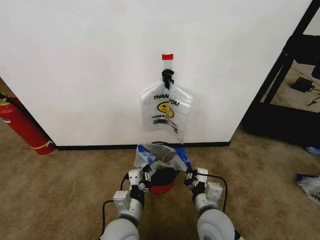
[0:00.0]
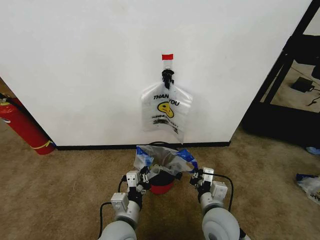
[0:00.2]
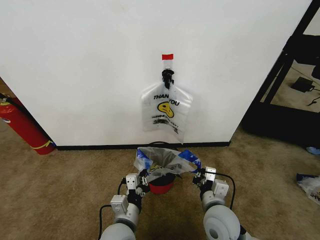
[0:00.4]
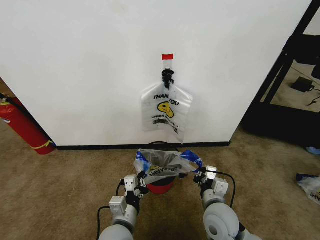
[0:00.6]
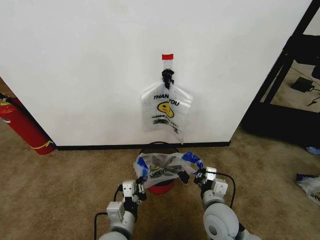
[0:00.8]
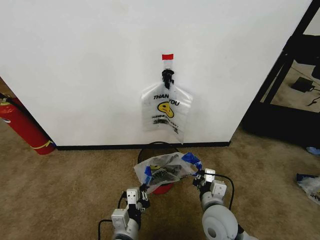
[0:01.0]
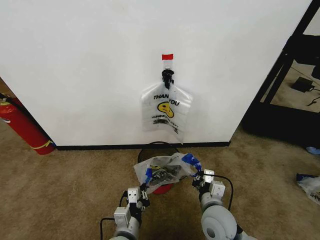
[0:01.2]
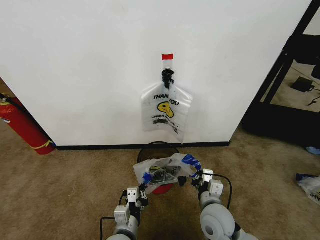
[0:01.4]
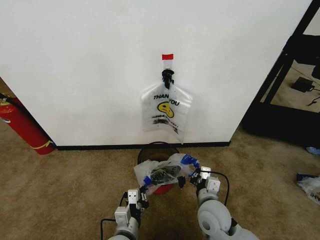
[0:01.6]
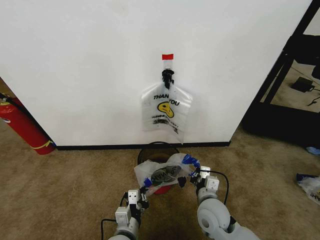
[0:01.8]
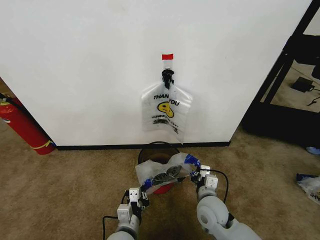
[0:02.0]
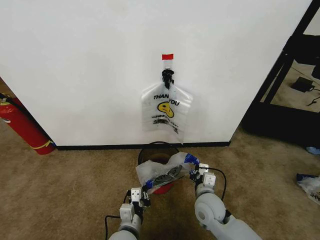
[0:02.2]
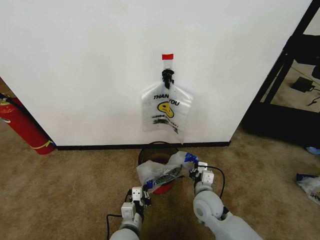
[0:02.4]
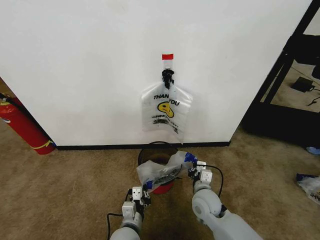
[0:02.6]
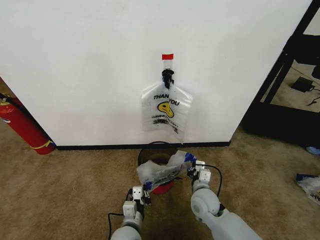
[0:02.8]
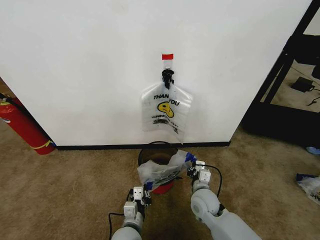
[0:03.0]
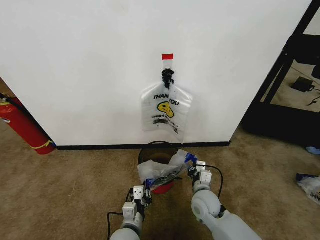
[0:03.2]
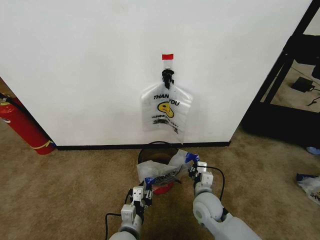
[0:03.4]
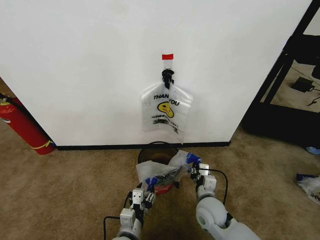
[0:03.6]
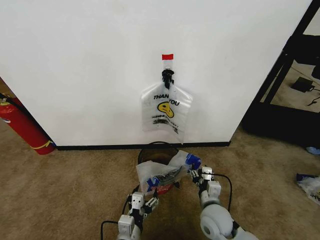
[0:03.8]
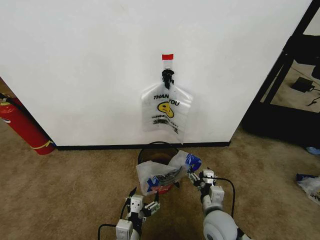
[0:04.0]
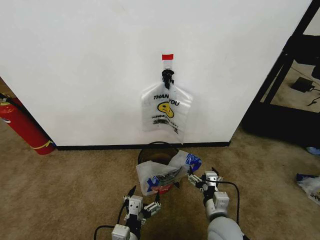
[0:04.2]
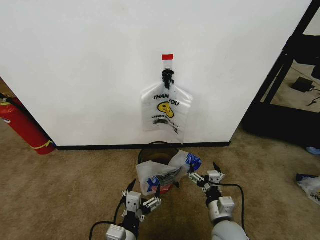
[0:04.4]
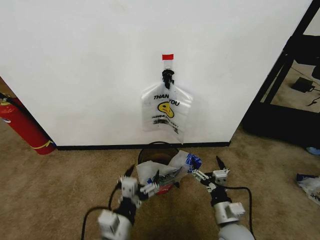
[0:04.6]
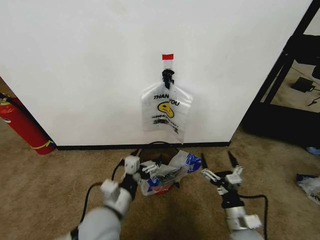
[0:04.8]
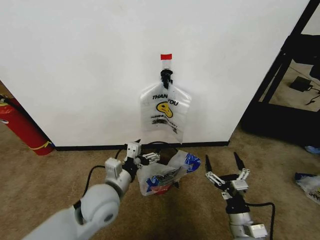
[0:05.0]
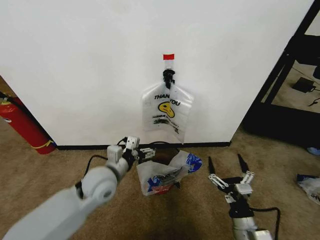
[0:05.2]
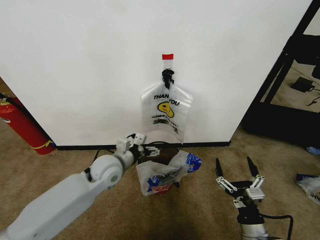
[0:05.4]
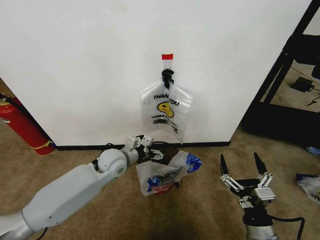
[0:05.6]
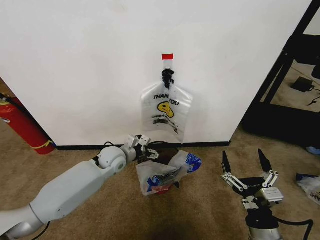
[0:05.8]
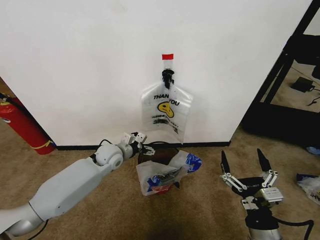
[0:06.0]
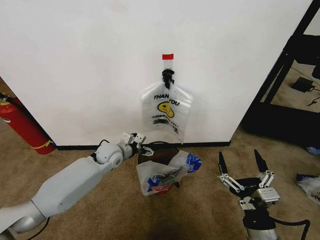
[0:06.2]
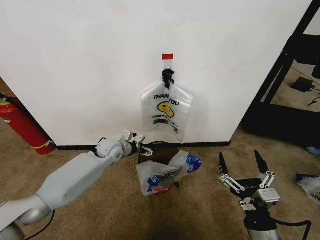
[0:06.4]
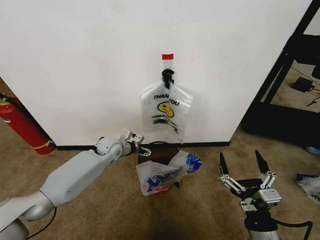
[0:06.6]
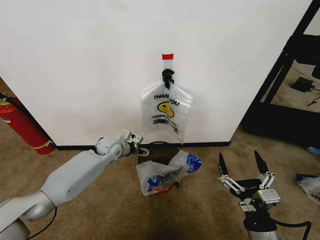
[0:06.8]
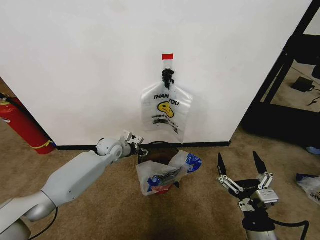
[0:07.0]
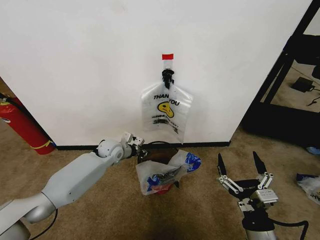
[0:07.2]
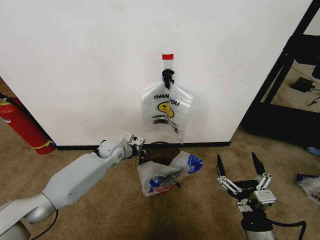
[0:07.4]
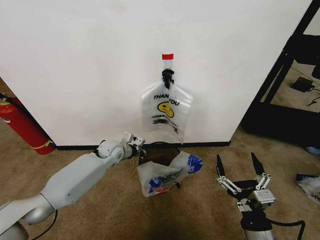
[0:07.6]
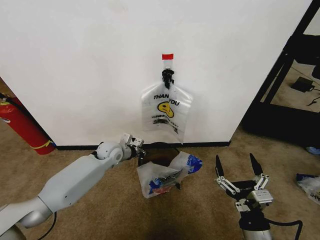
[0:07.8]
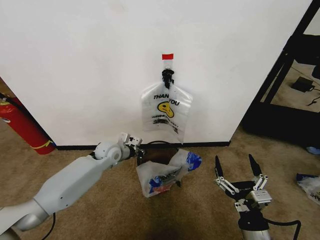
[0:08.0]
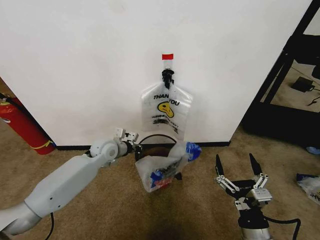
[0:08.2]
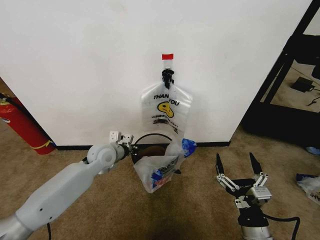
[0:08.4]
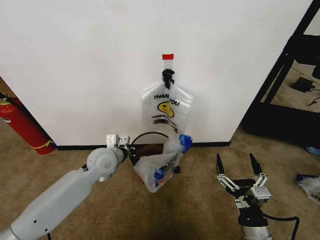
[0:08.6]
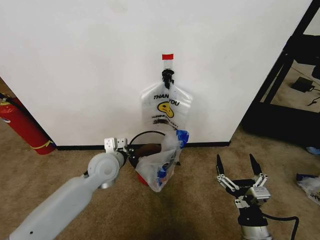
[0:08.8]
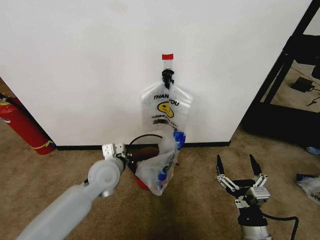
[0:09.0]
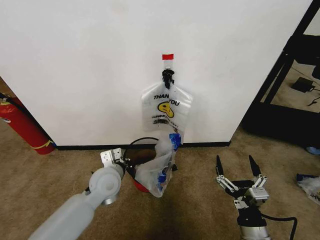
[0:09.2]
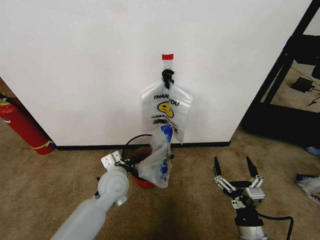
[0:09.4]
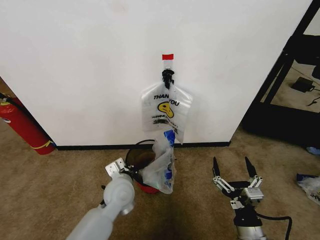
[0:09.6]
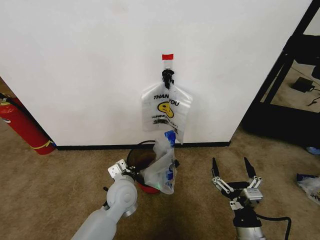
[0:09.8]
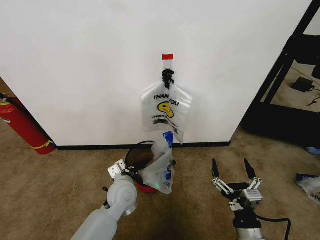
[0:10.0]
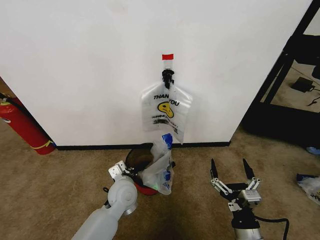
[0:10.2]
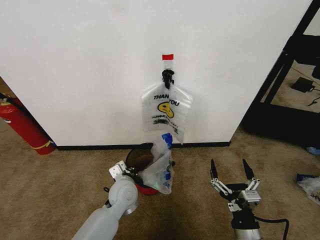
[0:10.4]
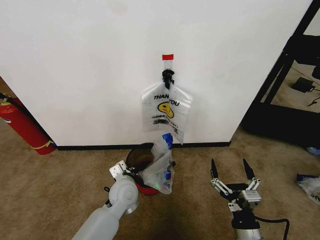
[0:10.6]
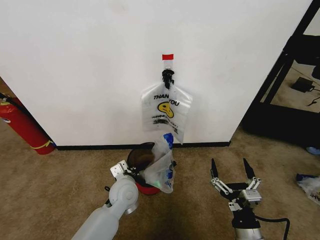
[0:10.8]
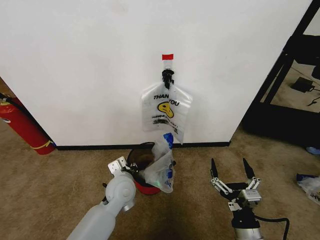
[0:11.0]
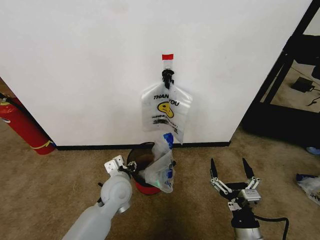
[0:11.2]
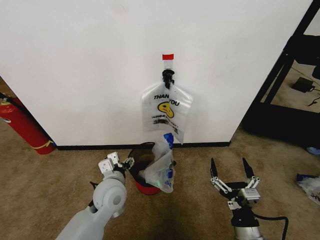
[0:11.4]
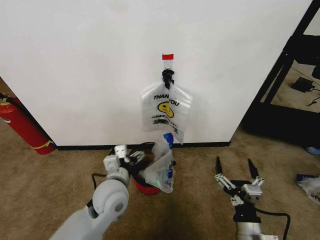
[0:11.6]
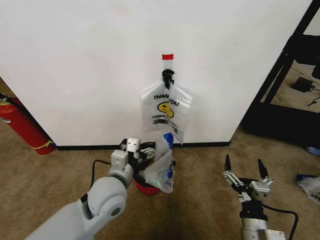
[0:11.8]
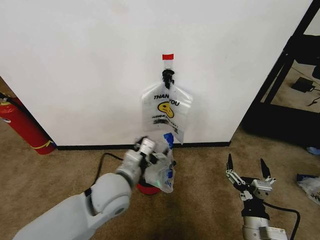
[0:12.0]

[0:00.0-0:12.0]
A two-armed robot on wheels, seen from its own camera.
Task of the whole recording: Pick up the garbage bag from the wall and place it over the trash bin.
0:00.0 to 0:01.6: The right gripper moves approximately 5 cm, while the left gripper goes approximately 5 cm downward.
0:01.6 to 0:03.0: The right gripper is displaced forward by approximately 5 cm. The left gripper ends up about 5 cm from where it was.
0:03.0 to 0:04.4: The left gripper heads upward and backward, covering roughly 10 cm, and opens its fingers. Meanwhile the right gripper goes some 10 cm backward, and opens its fingers.
0:04.4 to 0:06.0: The right gripper goes some 15 cm backward, upward and to the right, while the left gripper travels forward by roughly 35 cm.
0:06.0 to 0:07.6: The left gripper closes its fingers.
0:07.6 to 0:09.0: The left gripper goes some 15 cm backward.
0:09.0 to 0:10.4: The left gripper heads downward and to the right, covering about 10 cm.
0:10.4 to 0:12.0: The left gripper travels upward by approximately 15 cm, and opens its fingers.

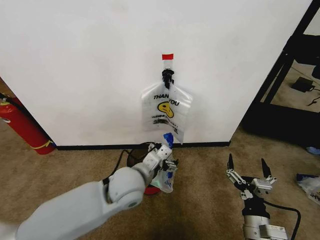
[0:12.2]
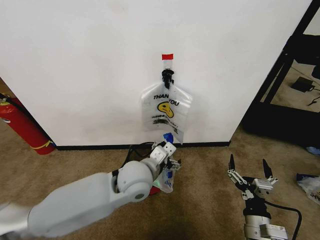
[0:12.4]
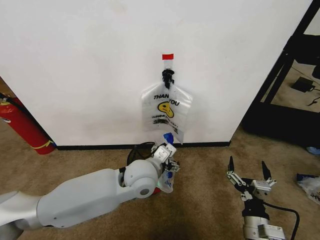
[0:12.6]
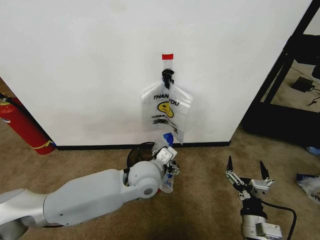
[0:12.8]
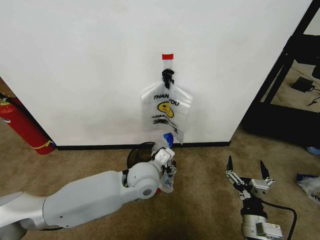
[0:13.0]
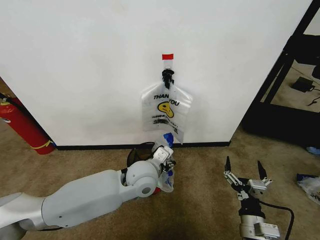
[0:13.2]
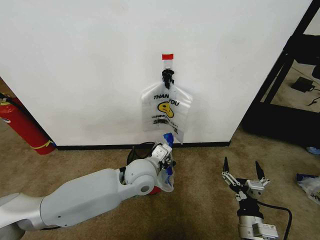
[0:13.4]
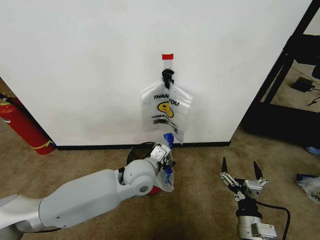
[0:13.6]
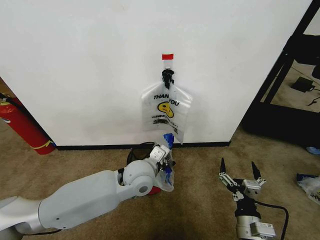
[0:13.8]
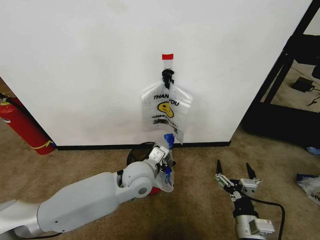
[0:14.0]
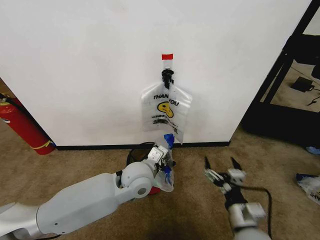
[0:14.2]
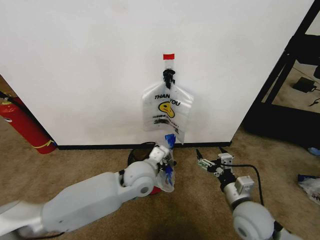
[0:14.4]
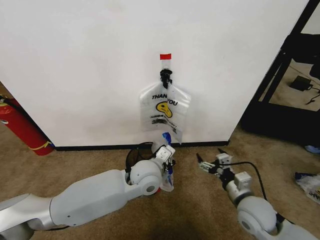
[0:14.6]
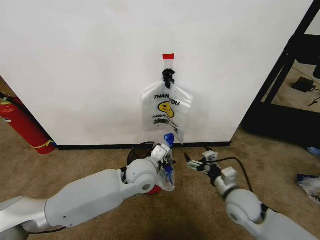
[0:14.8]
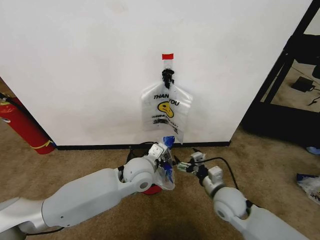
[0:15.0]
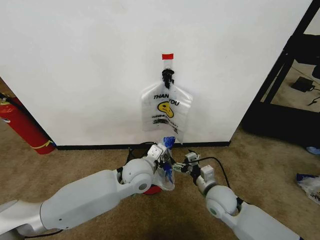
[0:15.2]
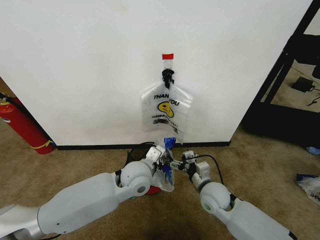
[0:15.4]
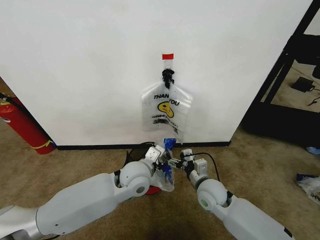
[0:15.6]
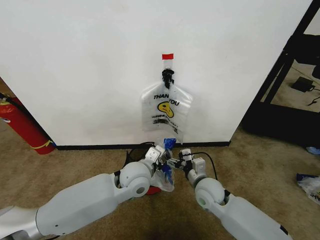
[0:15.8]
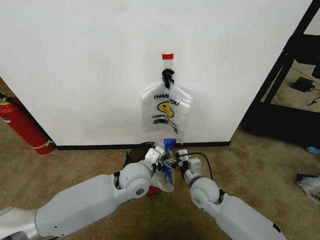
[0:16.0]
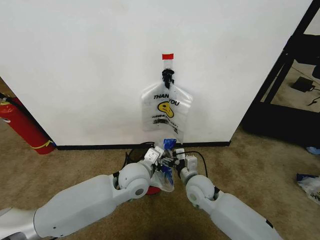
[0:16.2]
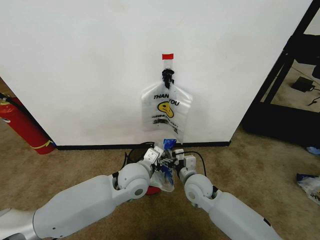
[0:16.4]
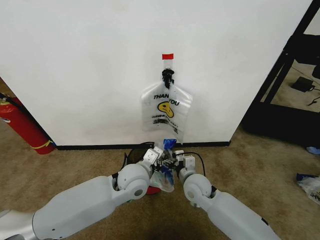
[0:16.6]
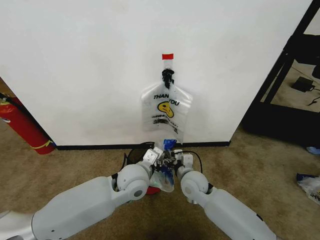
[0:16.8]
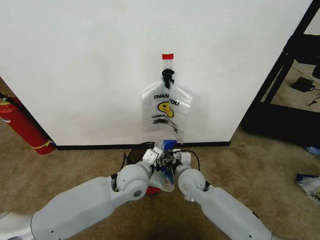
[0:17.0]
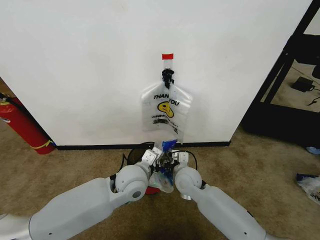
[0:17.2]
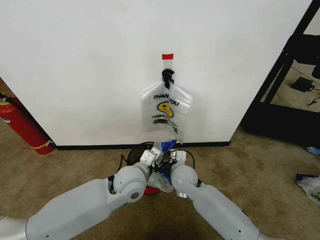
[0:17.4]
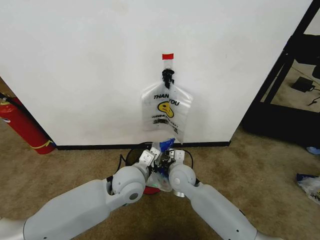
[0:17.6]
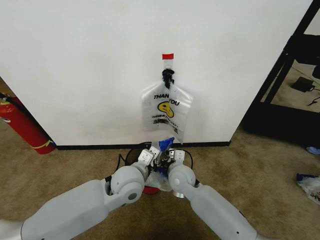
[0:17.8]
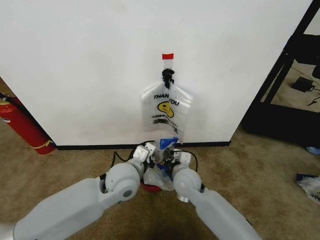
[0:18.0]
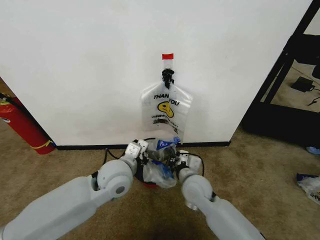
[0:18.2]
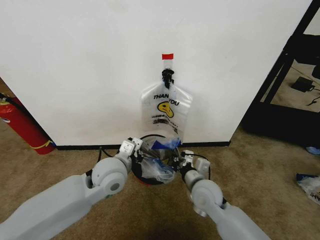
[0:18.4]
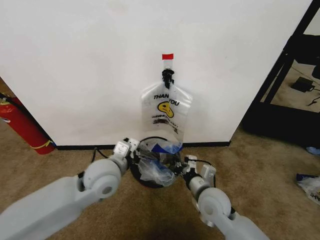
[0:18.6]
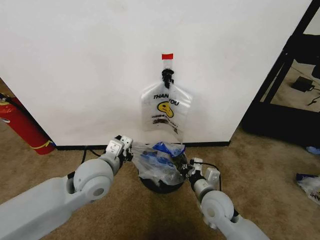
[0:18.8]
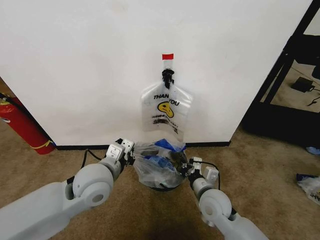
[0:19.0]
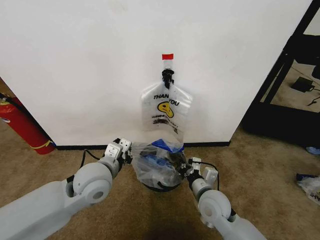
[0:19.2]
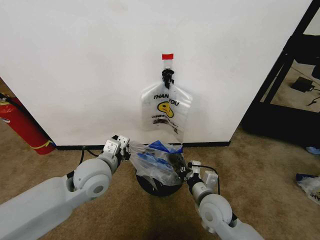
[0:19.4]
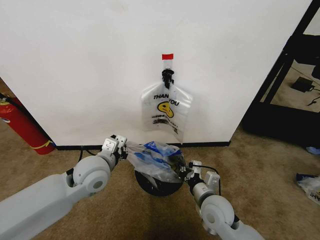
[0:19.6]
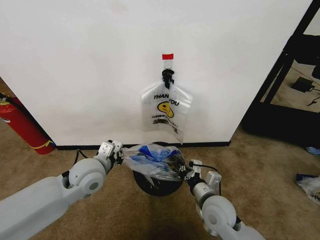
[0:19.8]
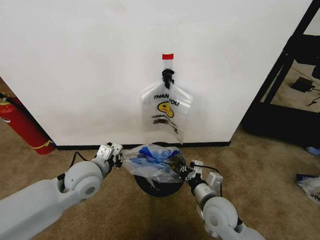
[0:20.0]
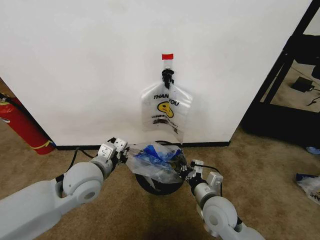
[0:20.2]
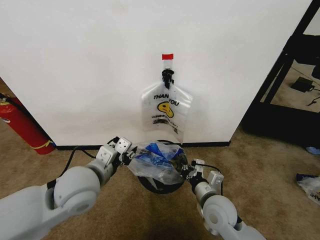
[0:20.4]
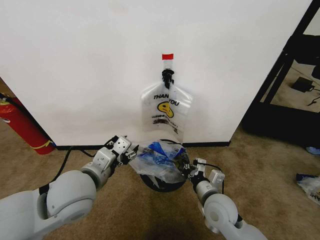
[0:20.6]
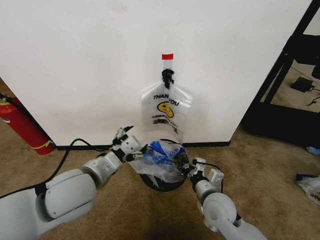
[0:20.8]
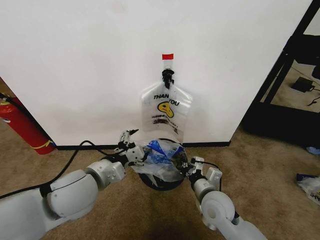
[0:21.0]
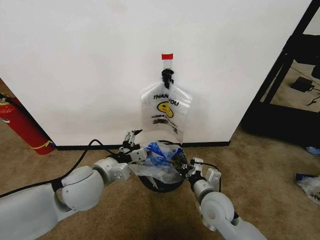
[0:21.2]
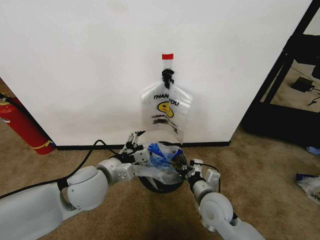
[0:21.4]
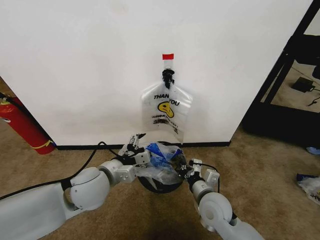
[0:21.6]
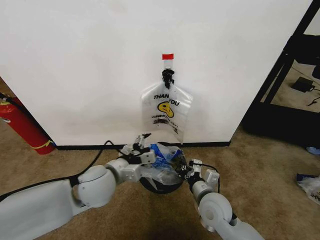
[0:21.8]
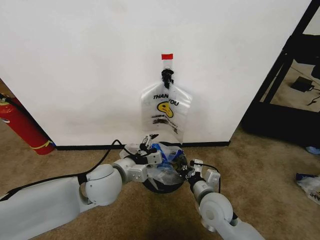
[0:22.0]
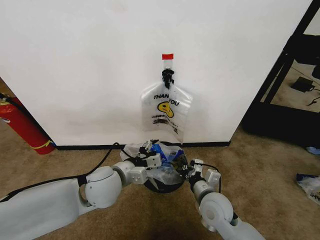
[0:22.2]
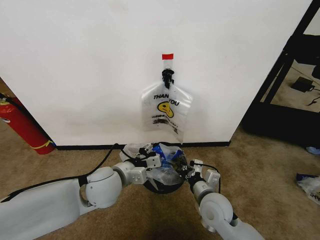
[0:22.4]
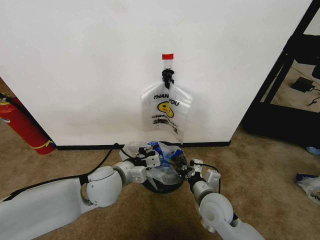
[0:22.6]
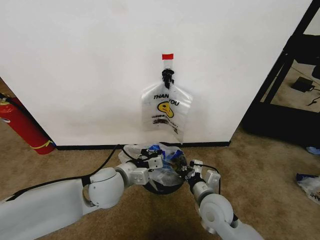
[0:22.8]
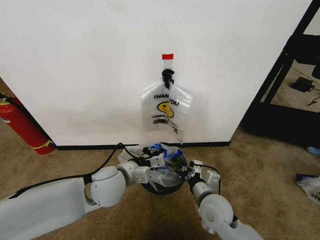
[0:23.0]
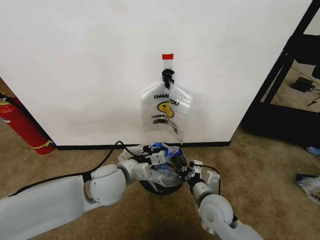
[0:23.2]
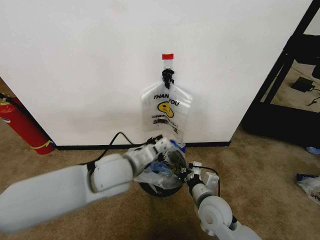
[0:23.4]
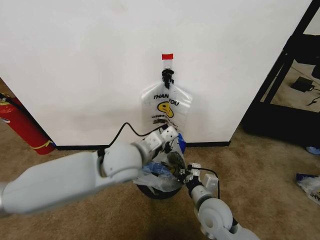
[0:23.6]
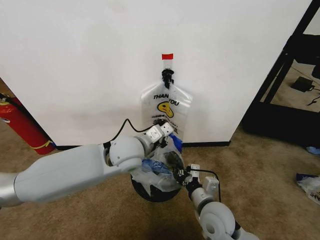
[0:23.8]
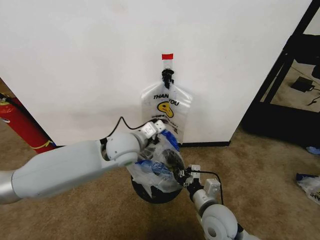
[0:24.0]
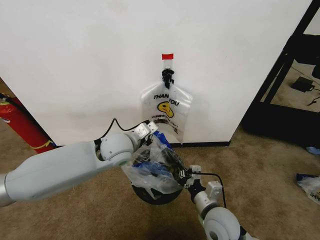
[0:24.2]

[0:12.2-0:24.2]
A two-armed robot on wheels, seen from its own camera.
Task of the whole recording: Pick up the garbage bag from the wall and place it over the trash bin.
0:12.2 to 0:13.8: The left gripper closes its fingers.
0:13.8 to 0:15.2: The right gripper travels forward by roughly 15 cm.
0:15.2 to 0:16.6: The right gripper is displaced to the left by about 5 cm.
0:16.6 to 0:18.2: The right gripper closes its fingers, while the left gripper shifts by about 5 cm.
0:18.2 to 0:19.8: The left gripper is displaced to the left by about 10 cm; the right gripper heads backward, covering about 5 cm.
0:19.8 to 0:21.2: The left gripper heads backward, covering about 5 cm, and opens up.
0:21.2 to 0:22.6: The left gripper ends up roughly 5 cm from where it was, and closes.
0:22.6 to 0:24.2: The left gripper travels forward by about 10 cm.
